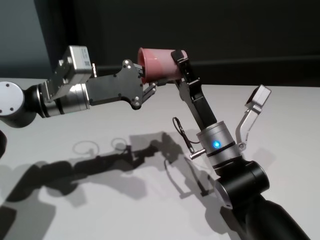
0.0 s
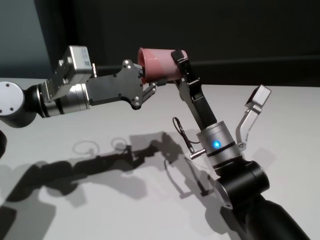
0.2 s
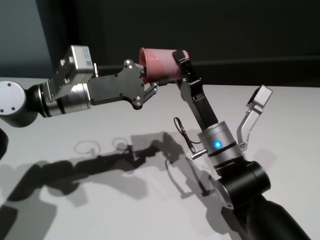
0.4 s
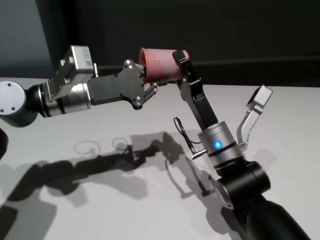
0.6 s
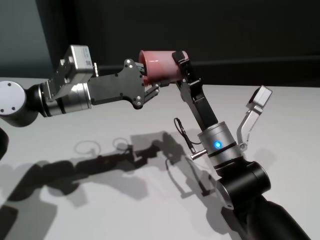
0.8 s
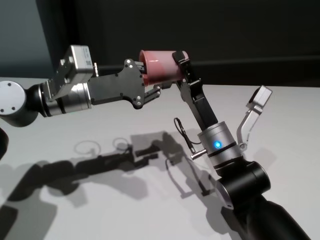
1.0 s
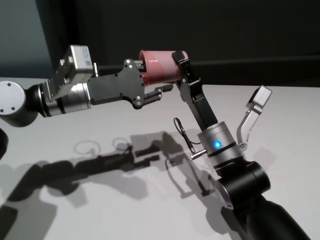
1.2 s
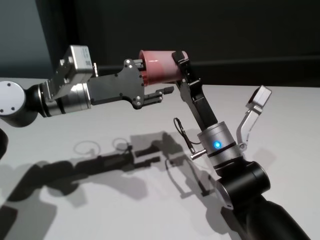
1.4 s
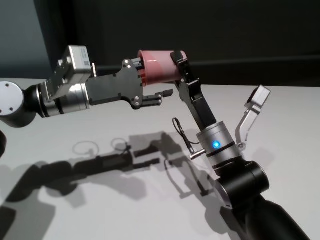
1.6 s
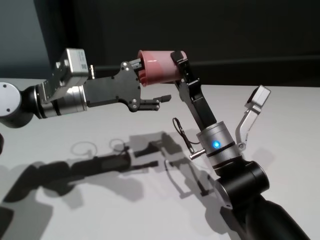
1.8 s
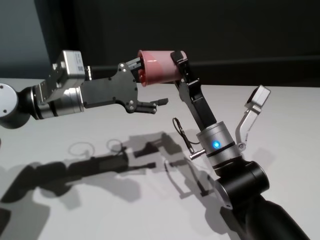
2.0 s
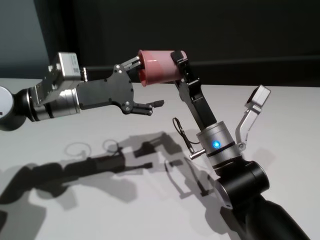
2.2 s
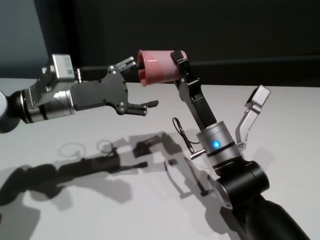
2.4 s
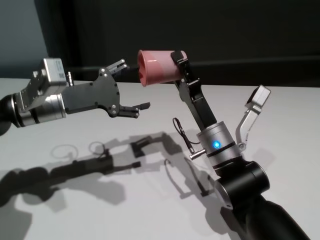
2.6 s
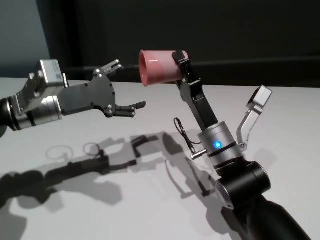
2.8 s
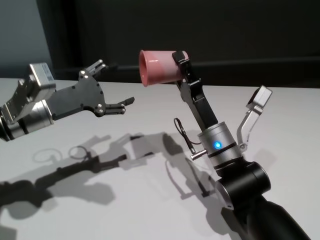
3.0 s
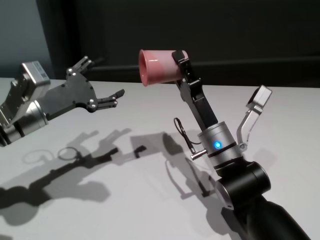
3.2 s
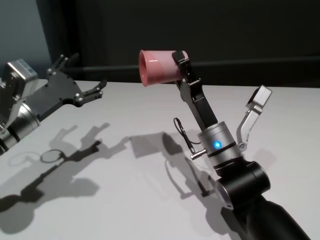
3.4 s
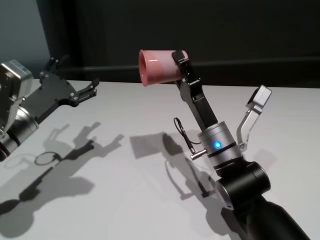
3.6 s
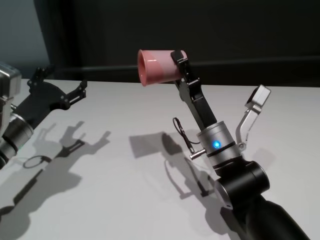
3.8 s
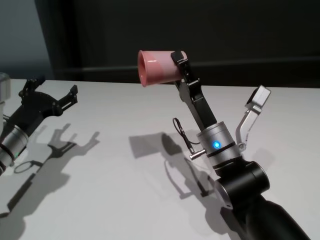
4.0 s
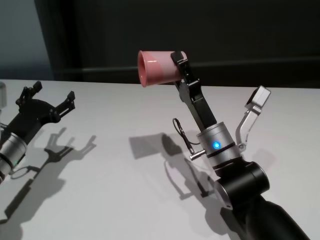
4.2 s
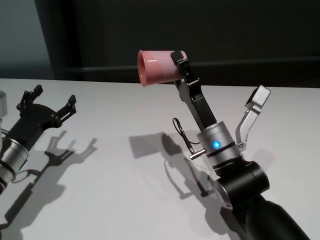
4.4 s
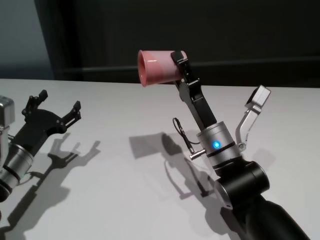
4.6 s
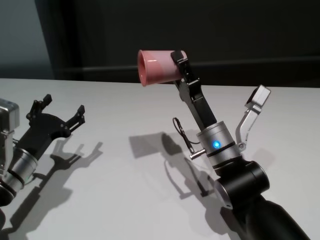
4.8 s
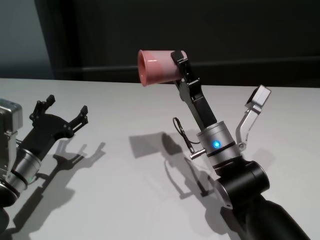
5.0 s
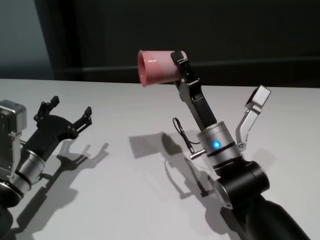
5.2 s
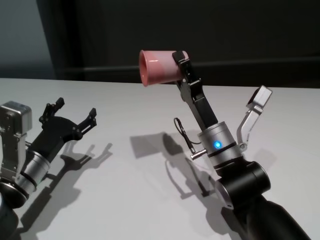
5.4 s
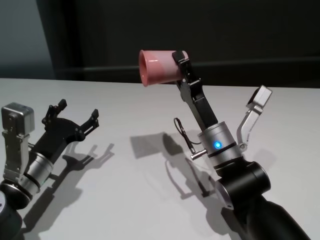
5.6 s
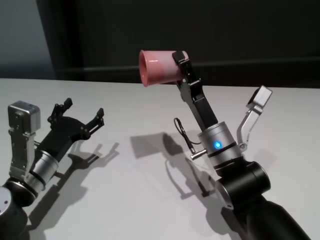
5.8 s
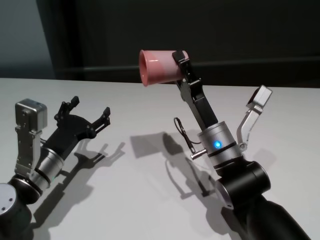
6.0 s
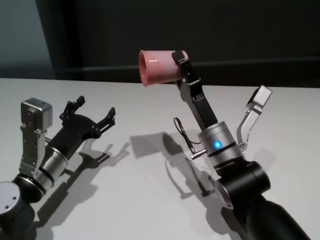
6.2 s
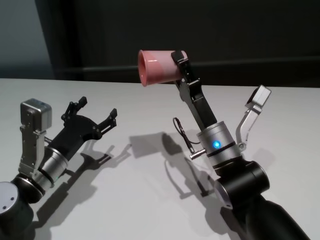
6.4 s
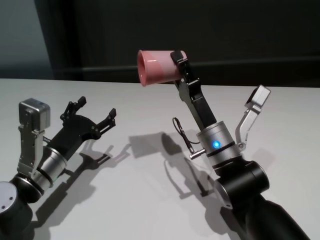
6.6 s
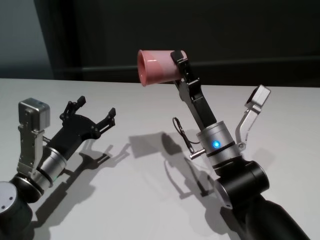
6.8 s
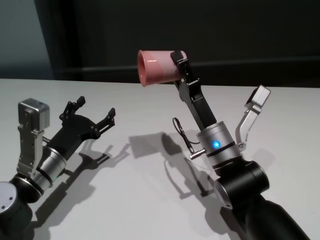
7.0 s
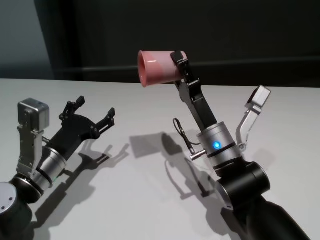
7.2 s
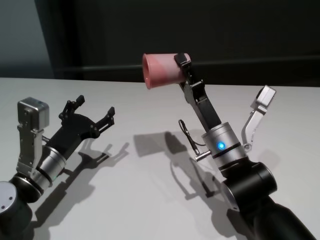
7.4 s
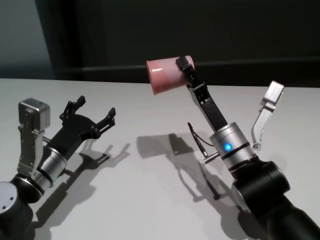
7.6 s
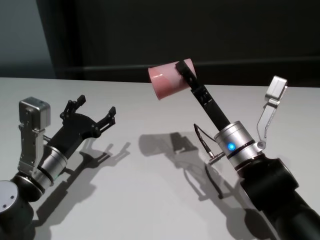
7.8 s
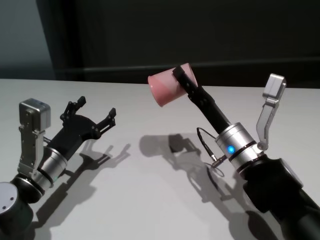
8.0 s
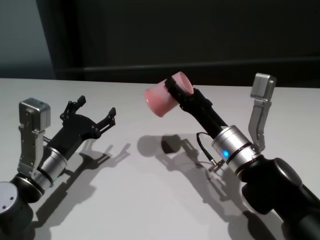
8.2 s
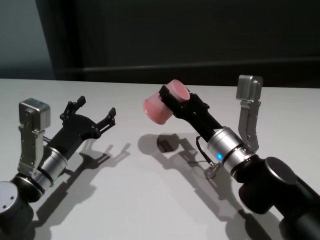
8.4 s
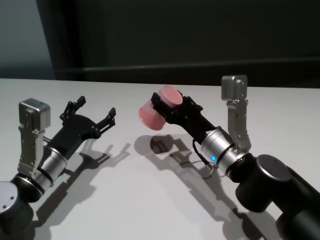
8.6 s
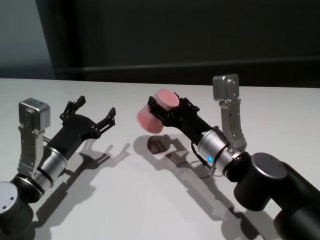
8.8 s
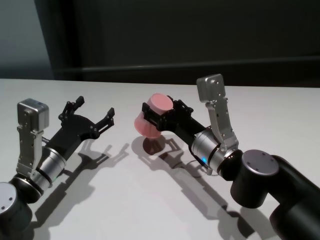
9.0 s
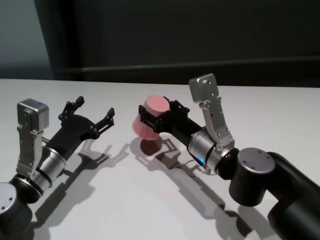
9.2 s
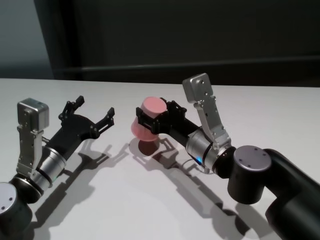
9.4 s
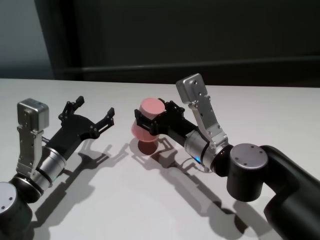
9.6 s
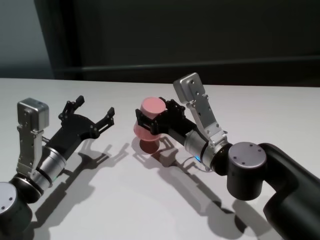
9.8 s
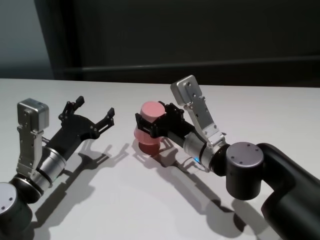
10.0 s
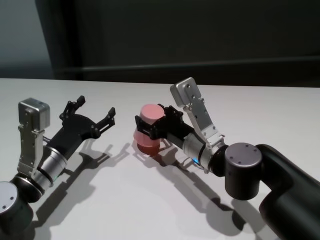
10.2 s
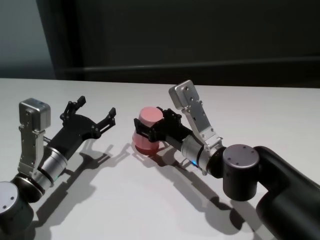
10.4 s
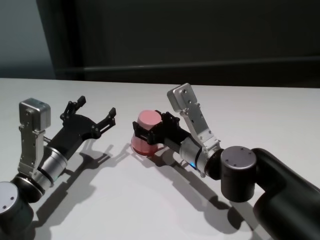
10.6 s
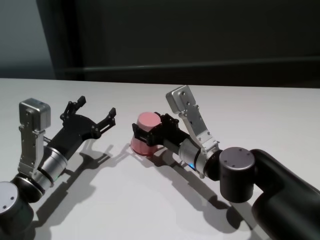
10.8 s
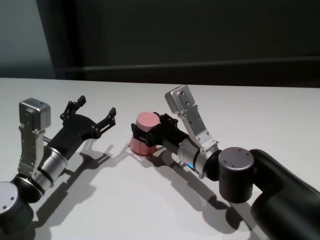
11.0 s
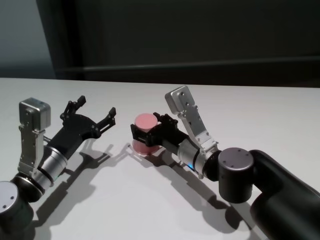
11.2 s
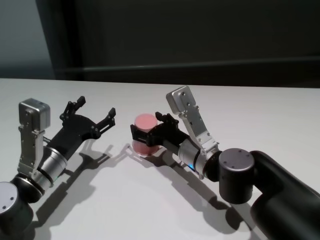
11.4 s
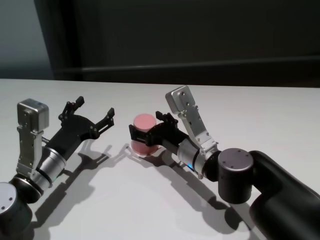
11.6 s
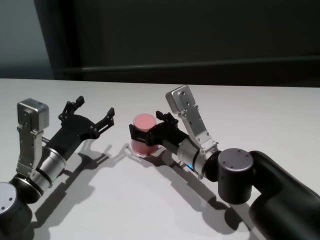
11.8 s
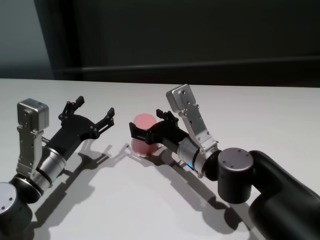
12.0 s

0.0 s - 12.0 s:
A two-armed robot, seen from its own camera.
Task of the whole recording: On the white table pick up the cup with one hand and transfer it to the other hand before turning it over.
Step, 0.0 s - 2.4 s: Pass the cup to the right gripper.

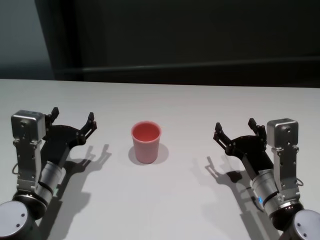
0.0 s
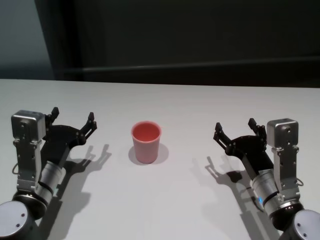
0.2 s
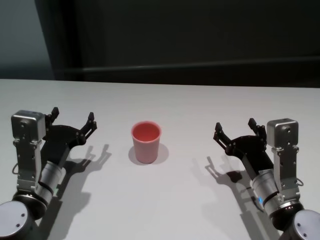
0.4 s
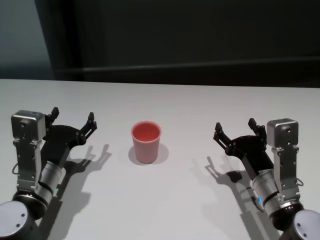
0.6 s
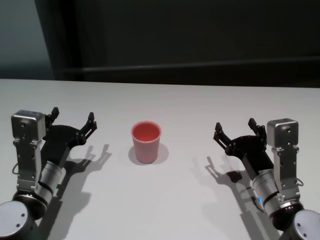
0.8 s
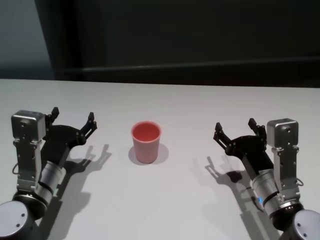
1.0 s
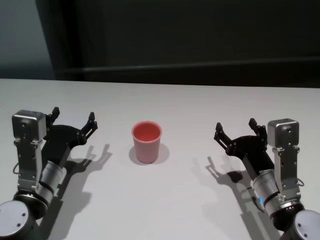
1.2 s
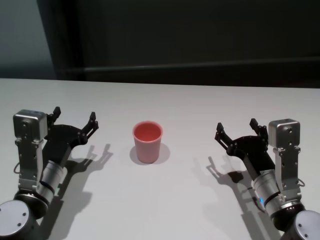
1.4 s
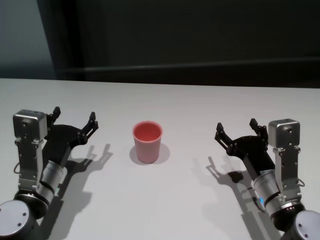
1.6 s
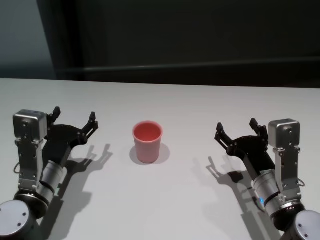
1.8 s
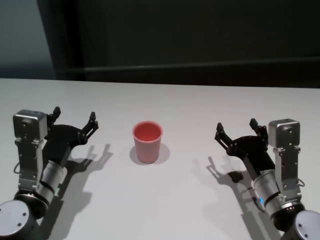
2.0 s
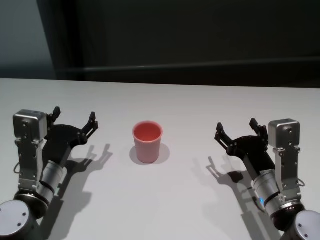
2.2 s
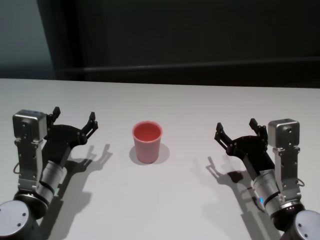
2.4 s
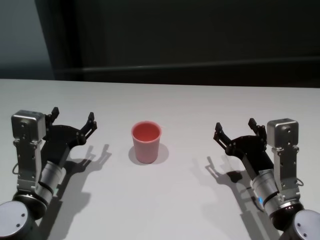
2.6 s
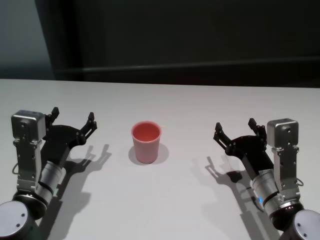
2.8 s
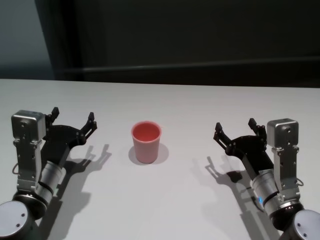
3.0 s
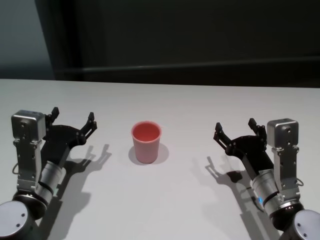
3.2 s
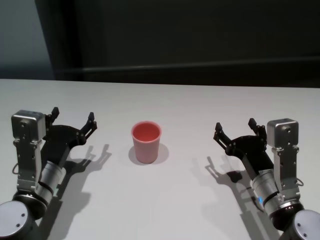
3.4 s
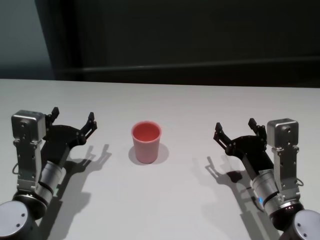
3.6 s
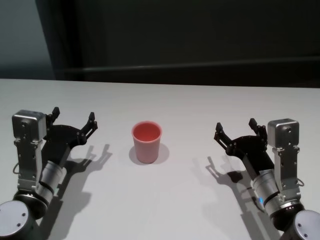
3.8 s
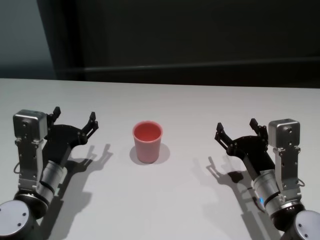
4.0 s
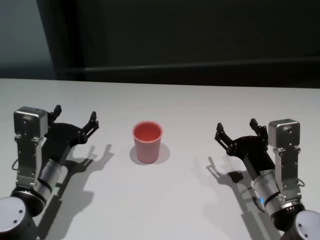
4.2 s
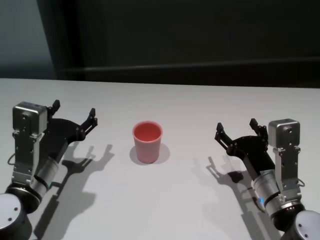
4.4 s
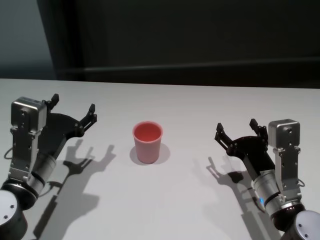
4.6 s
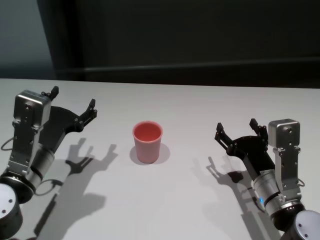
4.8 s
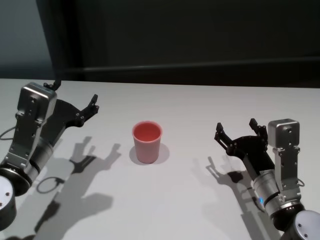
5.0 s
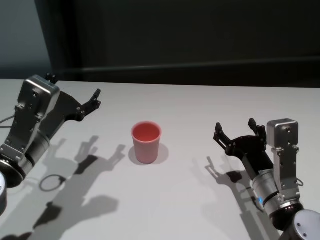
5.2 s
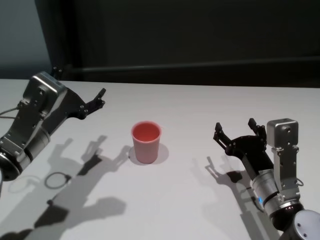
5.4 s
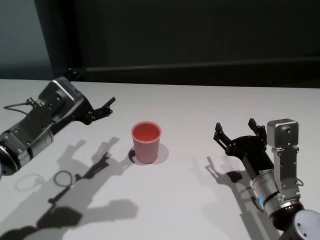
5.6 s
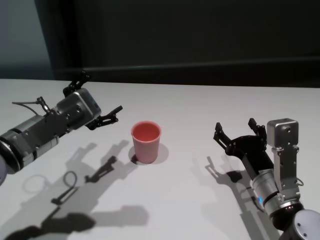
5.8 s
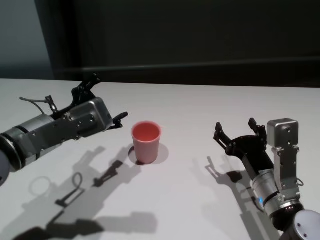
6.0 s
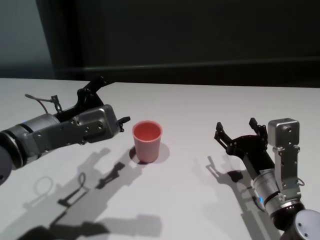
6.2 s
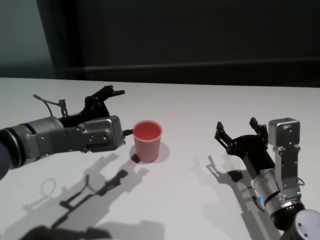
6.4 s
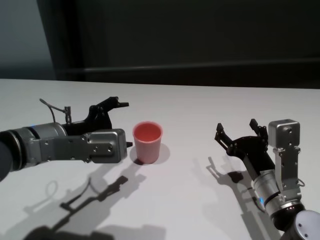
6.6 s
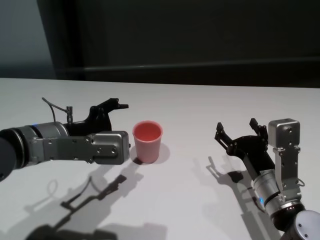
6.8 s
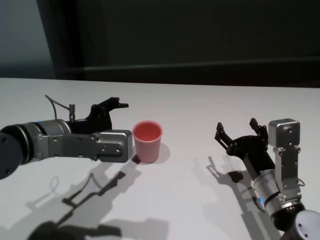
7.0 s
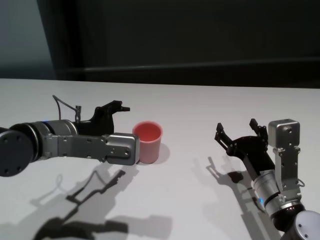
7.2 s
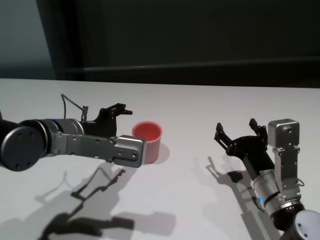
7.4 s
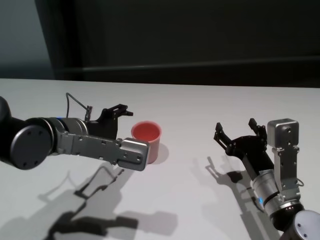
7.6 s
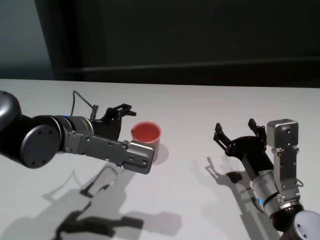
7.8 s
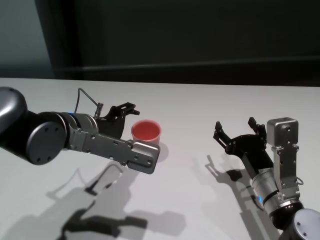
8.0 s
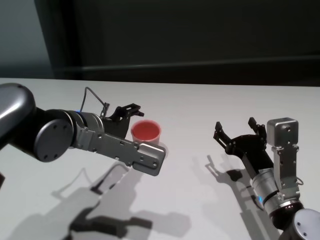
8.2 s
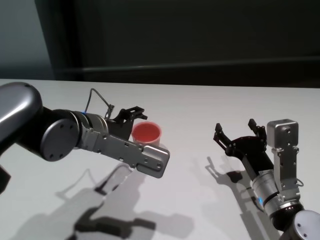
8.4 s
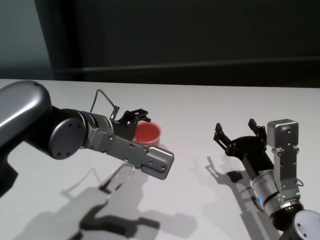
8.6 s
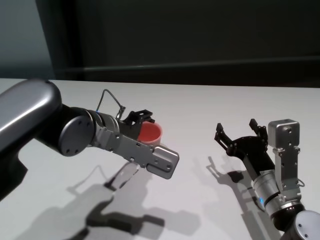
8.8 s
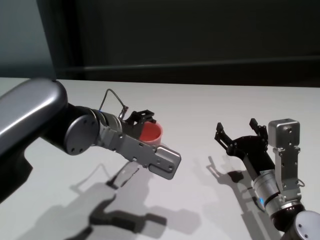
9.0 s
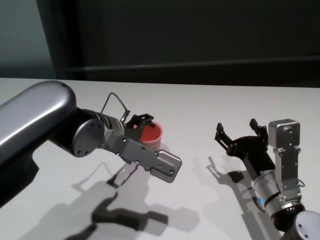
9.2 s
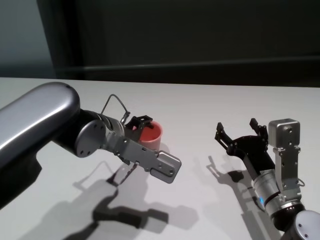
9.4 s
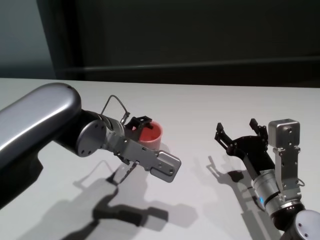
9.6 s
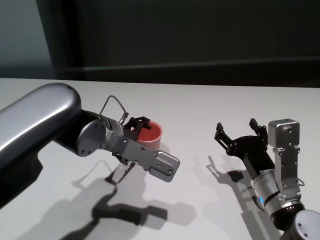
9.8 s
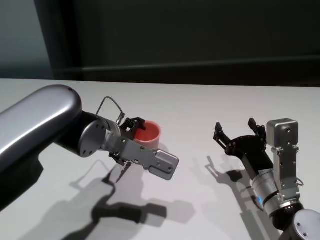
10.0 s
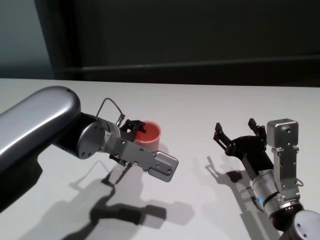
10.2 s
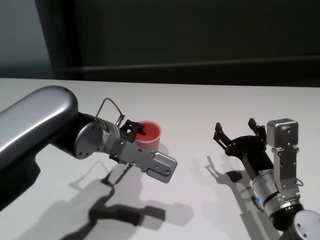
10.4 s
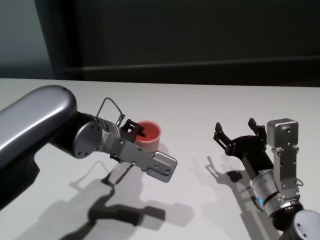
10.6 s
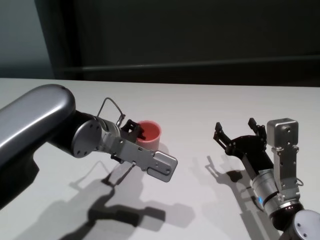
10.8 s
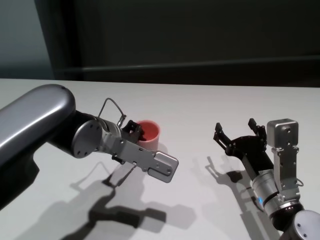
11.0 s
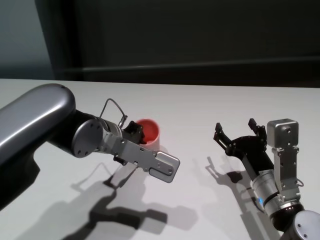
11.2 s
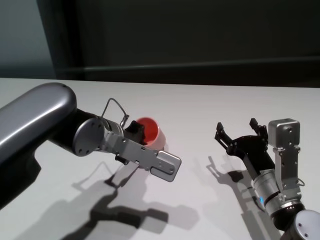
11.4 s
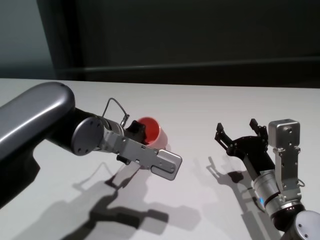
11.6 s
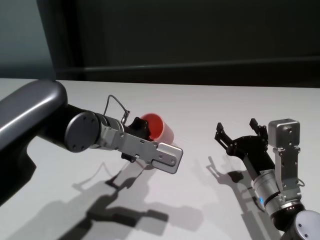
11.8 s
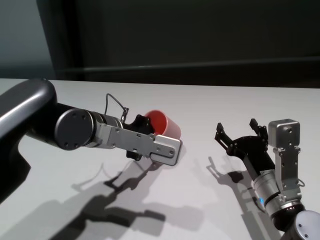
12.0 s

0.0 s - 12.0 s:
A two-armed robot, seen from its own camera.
Task of the whole recording: On the white table pick up the cup with one hand and transfer it to the other hand before turning it over.
Step, 0.0 s - 11.0 s: Grasp the cup with left gripper.
